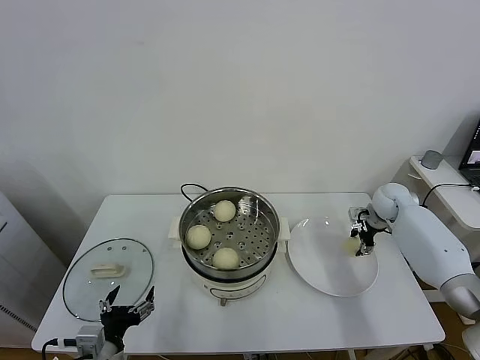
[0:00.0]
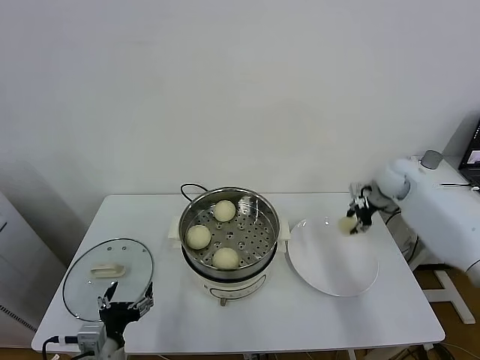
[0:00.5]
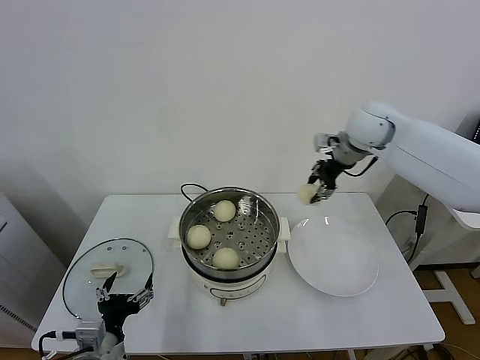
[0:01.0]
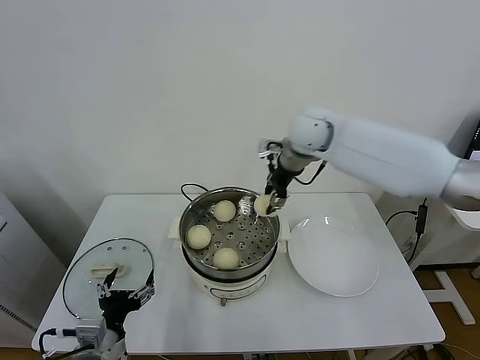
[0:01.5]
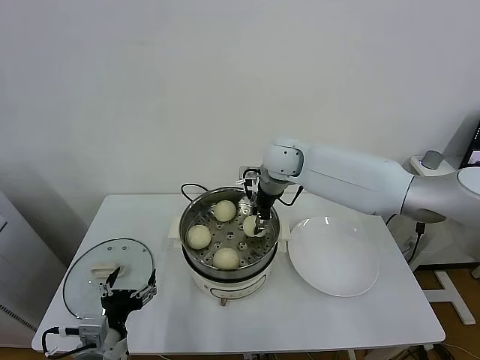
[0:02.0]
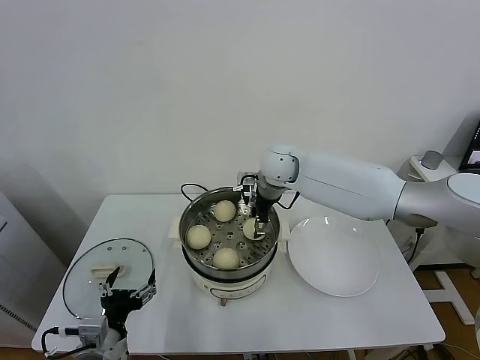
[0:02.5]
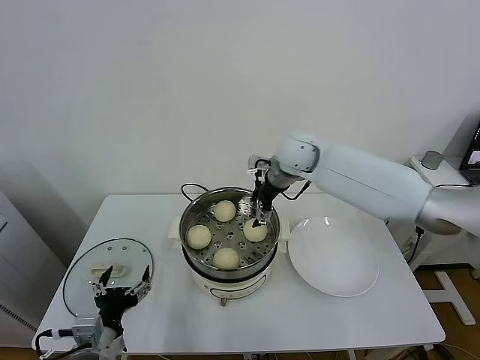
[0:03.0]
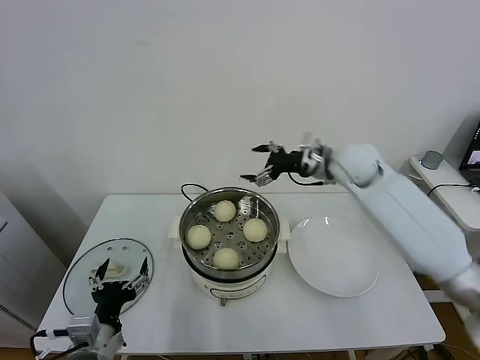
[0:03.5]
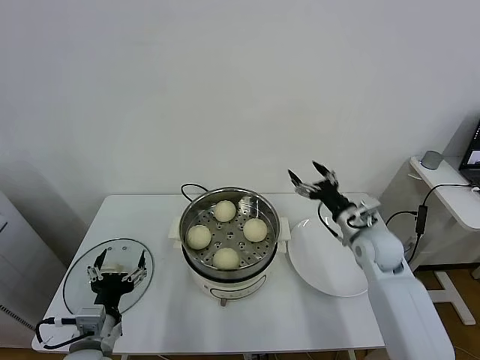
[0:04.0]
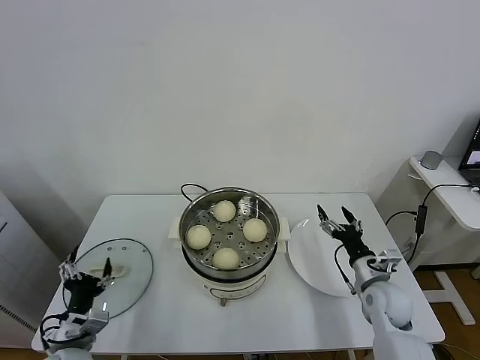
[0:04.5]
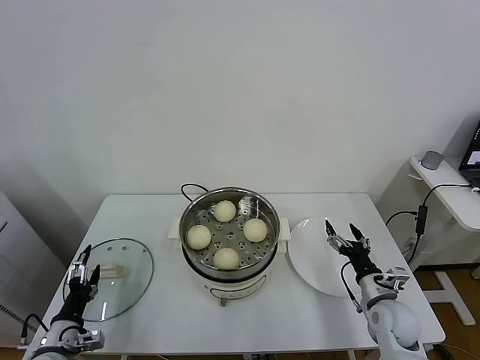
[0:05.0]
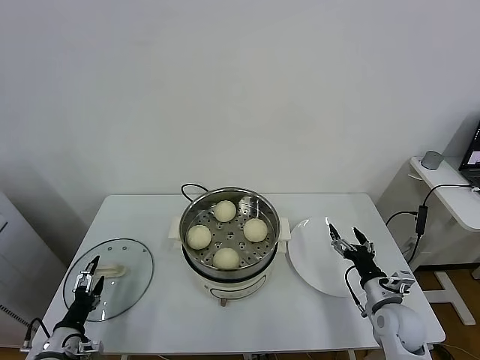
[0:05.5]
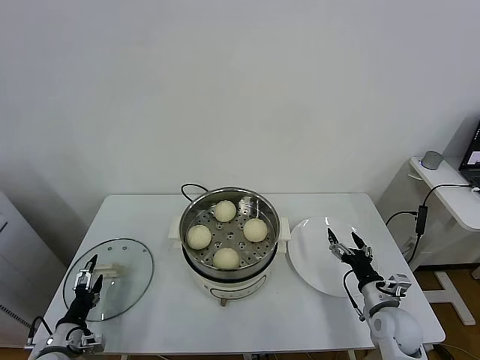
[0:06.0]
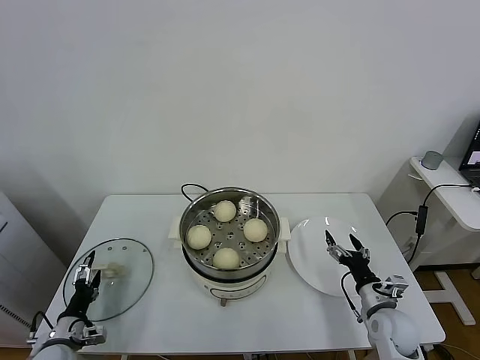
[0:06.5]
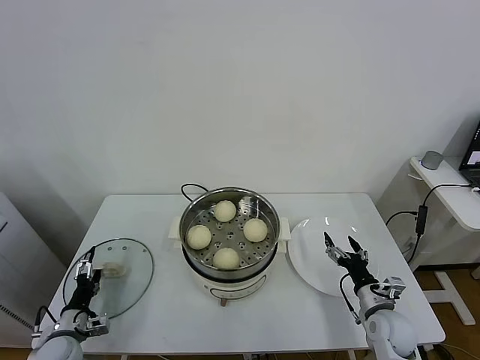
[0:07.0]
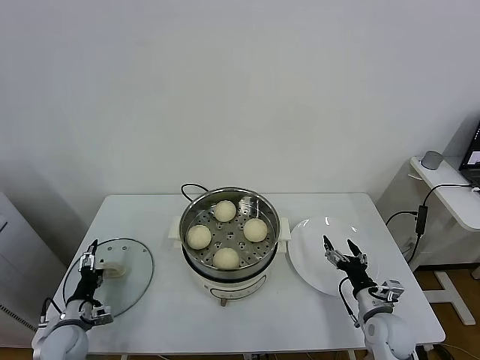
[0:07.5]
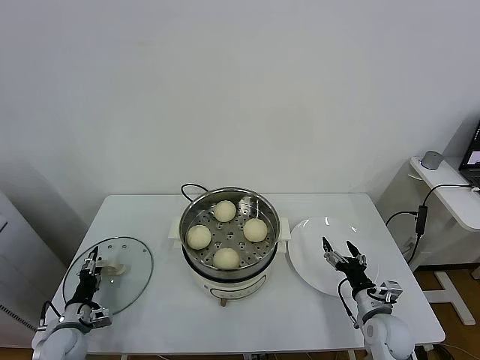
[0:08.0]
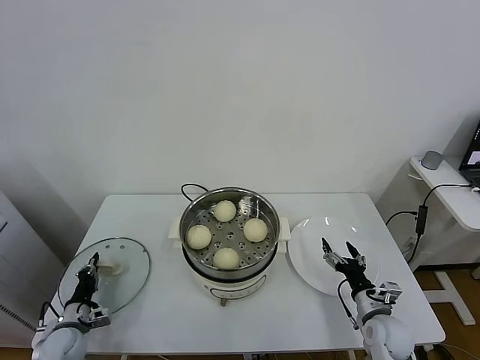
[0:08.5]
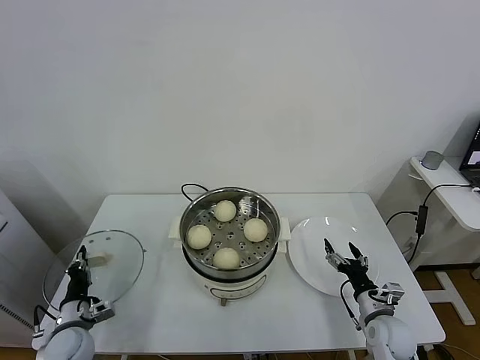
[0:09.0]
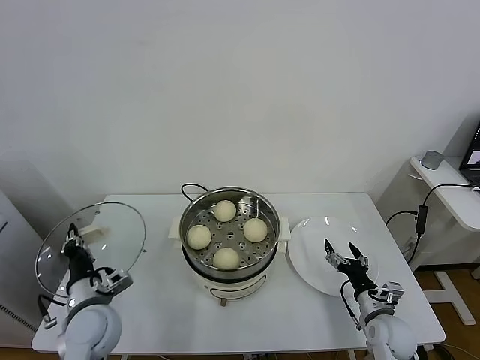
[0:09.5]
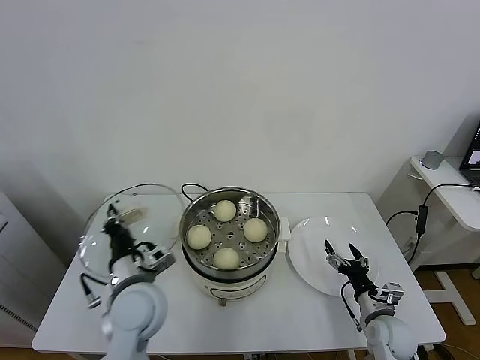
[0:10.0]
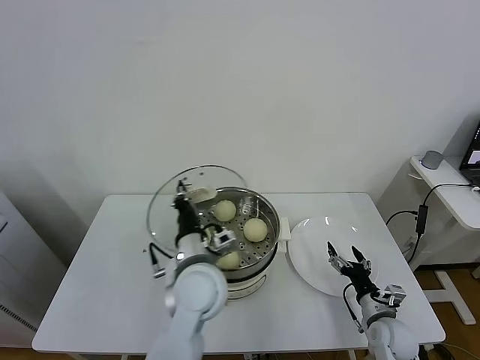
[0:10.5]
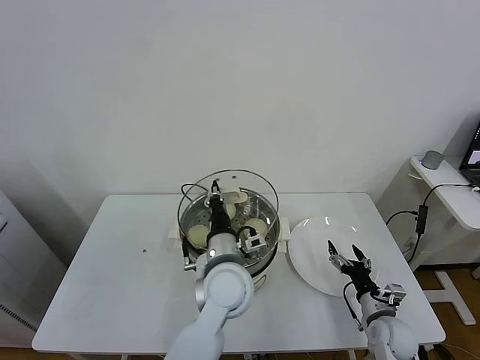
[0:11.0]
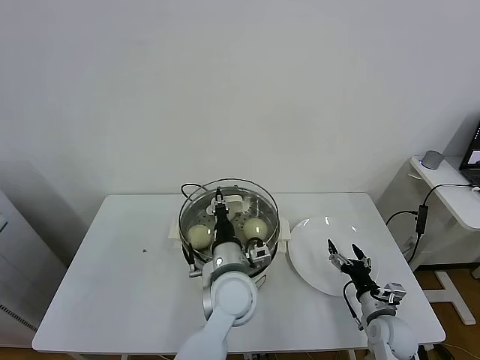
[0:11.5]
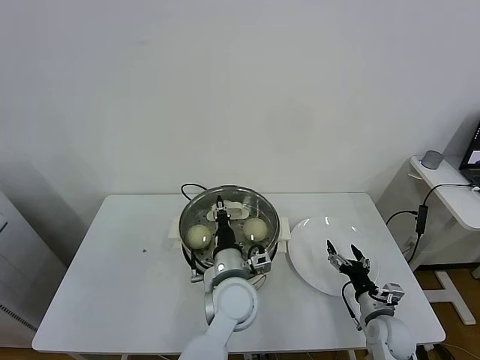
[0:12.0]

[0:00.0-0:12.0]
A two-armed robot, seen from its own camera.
Task of the whole recording: take steamed baozi put them in steamer.
Step, 0:00.5 to 0:03.0: Place the baozi on the steamer with right gripper.
Step, 0:03.5 to 0:08.5: Grasp the pot lid with left gripper.
0:00.0 to 0:02.0: The right gripper moves to the left and upward, approximately 35 cm.
0:02.0 to 0:04.0: The right gripper is displaced to the right, downward and backward by roughly 30 cm, and opens its fingers.
0:04.0 to 0:06.0: The right gripper goes roughly 20 cm backward and downward. Meanwhile the left gripper moves to the left and downward, approximately 20 cm.
0:06.0 to 0:08.0: The left gripper travels forward by some 5 cm.
0:08.0 to 0:10.0: The left gripper shifts approximately 30 cm to the right and upward, and closes its fingers.
0:10.0 to 0:12.0: The left gripper is displaced to the right by roughly 20 cm.

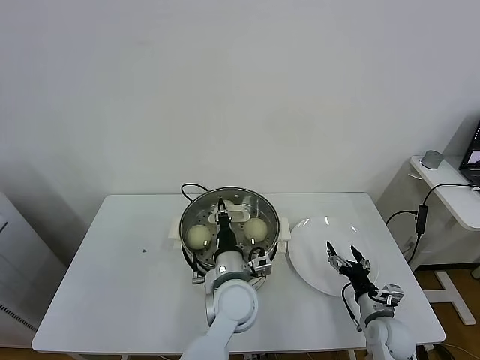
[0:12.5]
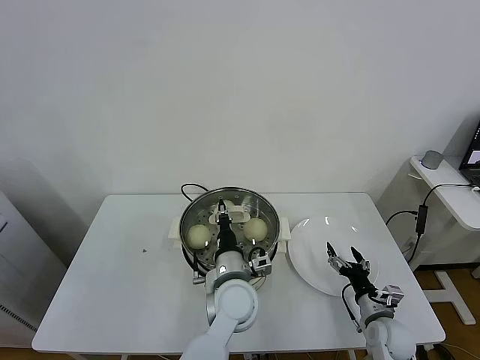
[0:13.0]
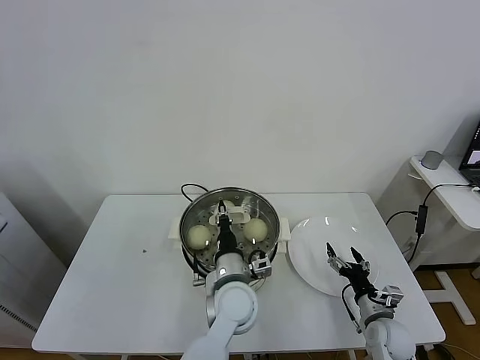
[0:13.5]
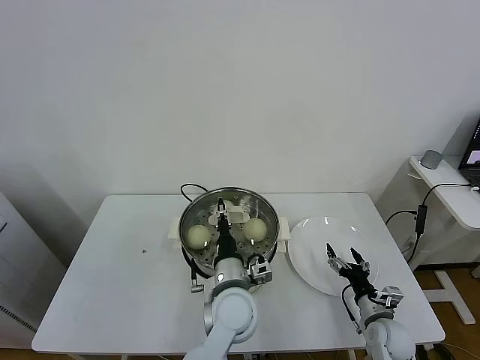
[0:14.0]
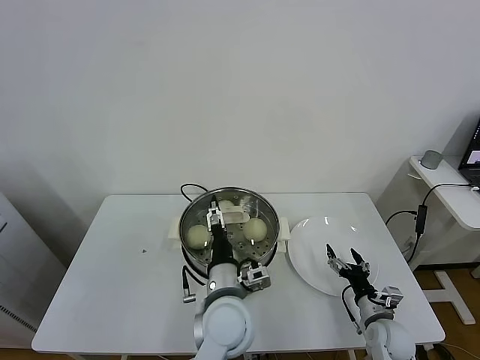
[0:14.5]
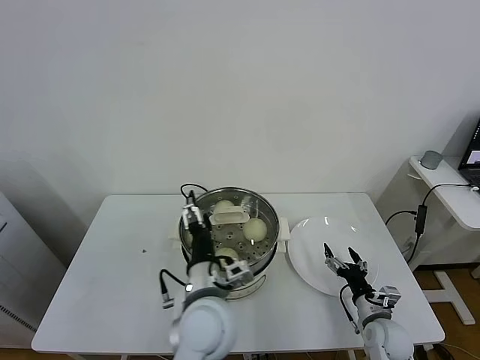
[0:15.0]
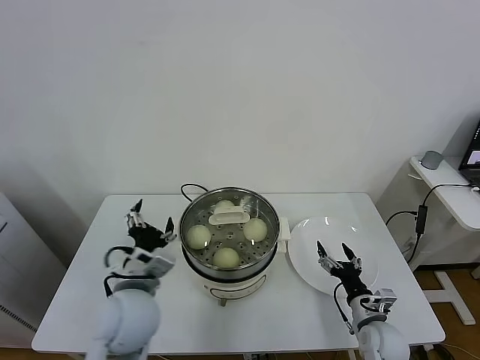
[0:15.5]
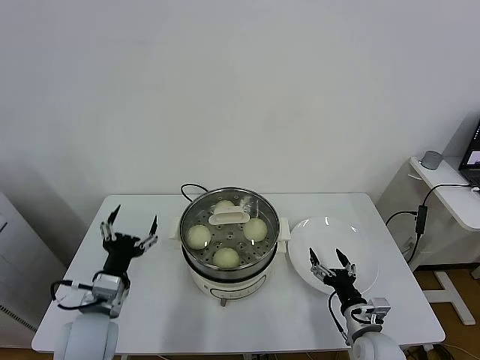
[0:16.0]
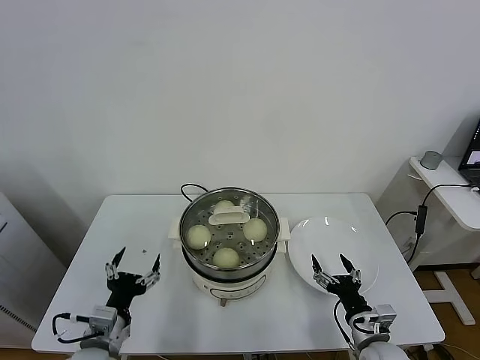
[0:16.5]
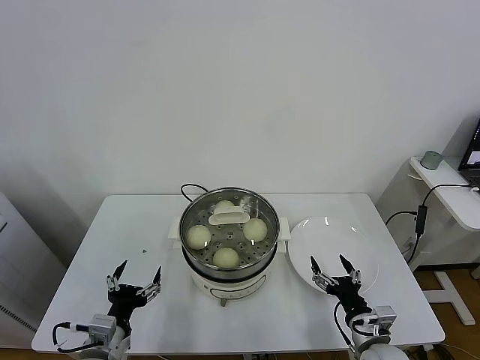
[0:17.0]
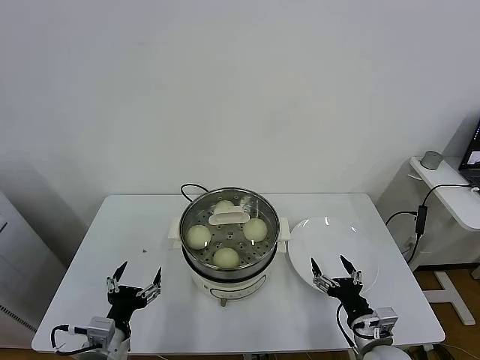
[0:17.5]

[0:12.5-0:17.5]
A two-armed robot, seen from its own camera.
Task of the whole recording: take steamed baozi put them in steamer.
0:12.5 to 0:15.0: The left gripper goes some 10 cm backward and upward, and opens.
0:15.0 to 0:17.5: The left gripper moves to the left and downward, about 25 cm. The right gripper is displaced backward and upward by about 10 cm.

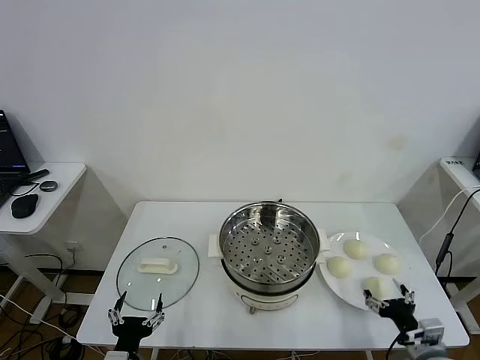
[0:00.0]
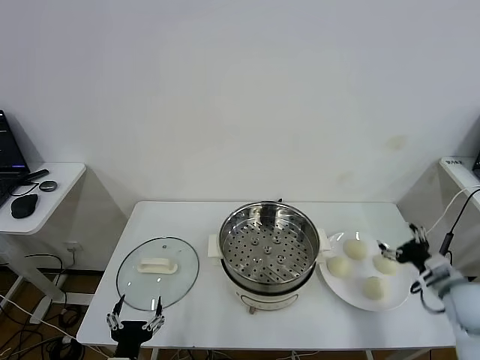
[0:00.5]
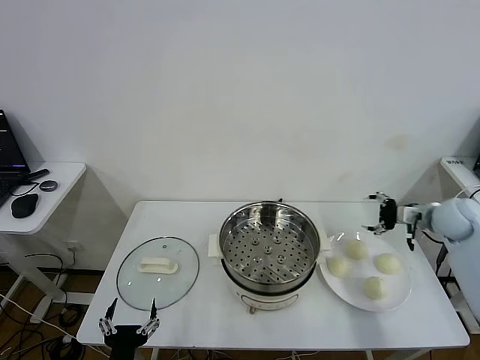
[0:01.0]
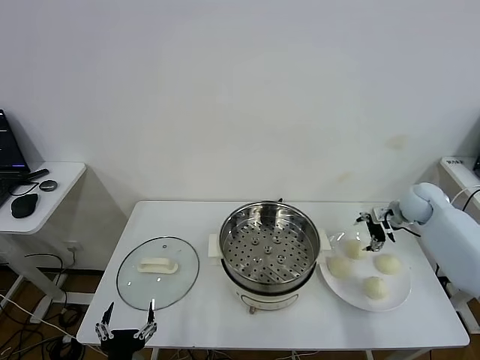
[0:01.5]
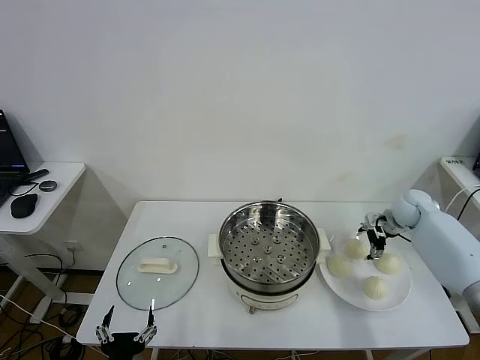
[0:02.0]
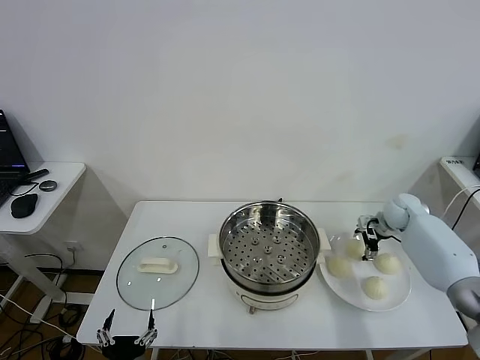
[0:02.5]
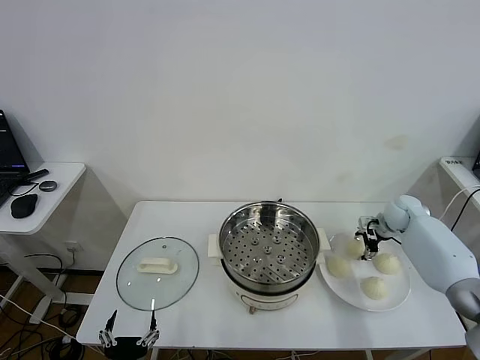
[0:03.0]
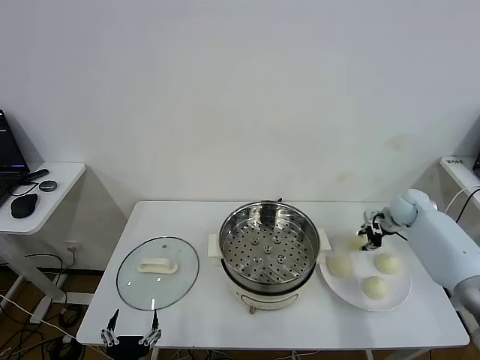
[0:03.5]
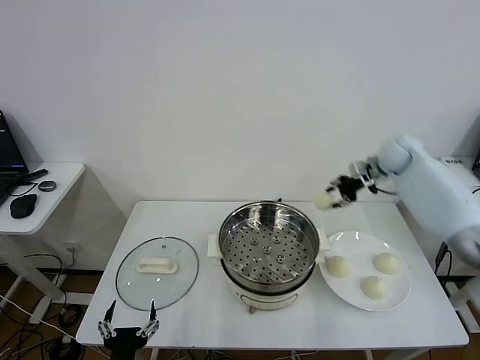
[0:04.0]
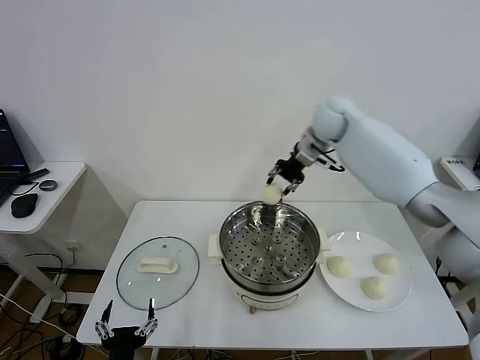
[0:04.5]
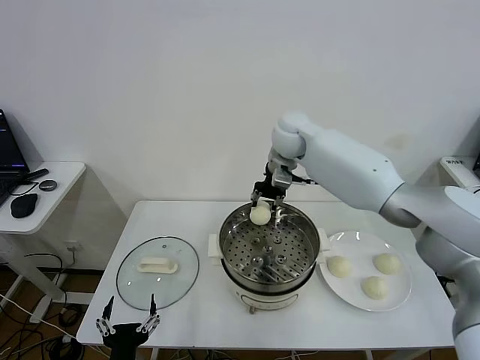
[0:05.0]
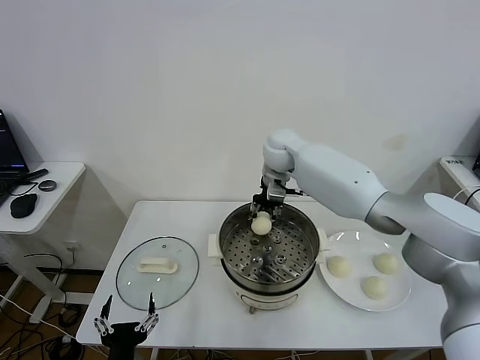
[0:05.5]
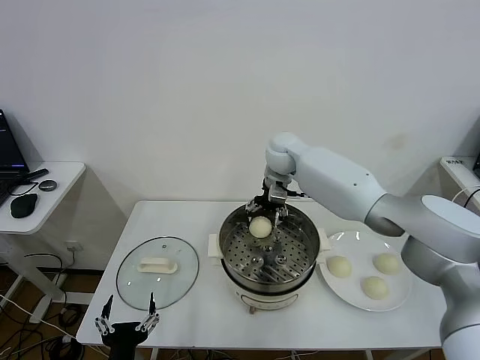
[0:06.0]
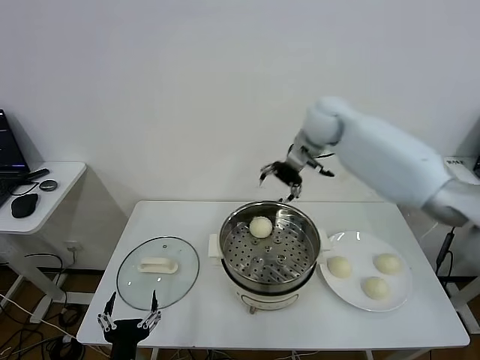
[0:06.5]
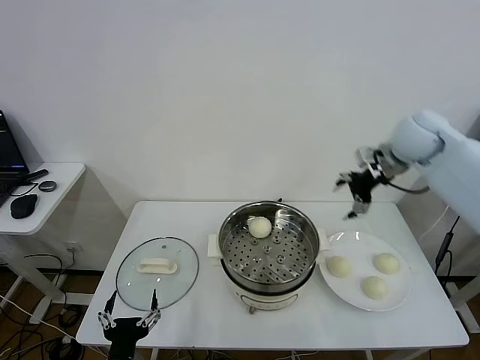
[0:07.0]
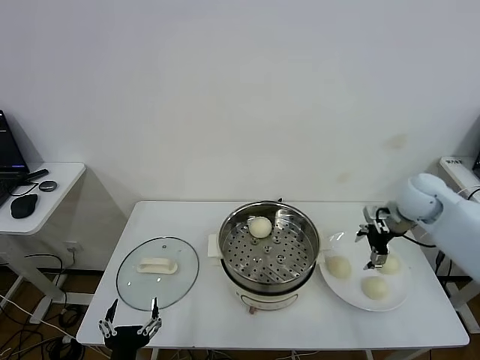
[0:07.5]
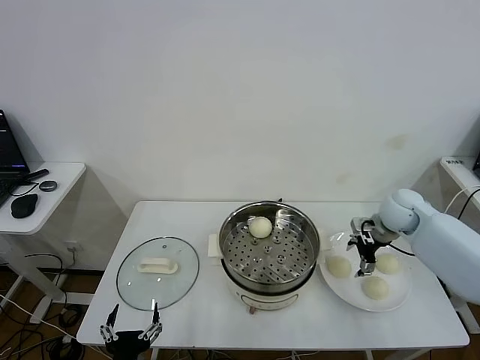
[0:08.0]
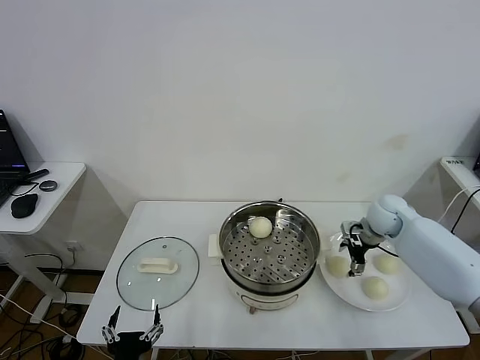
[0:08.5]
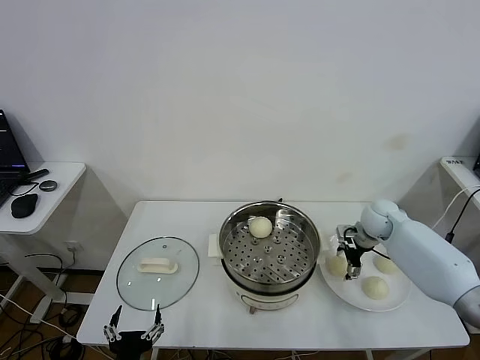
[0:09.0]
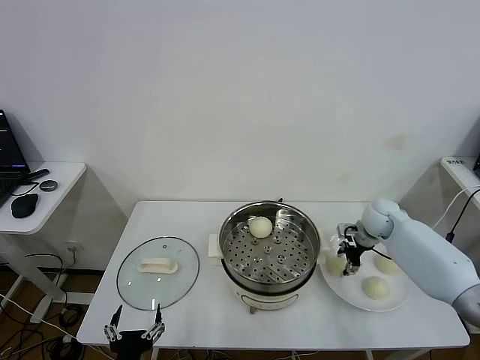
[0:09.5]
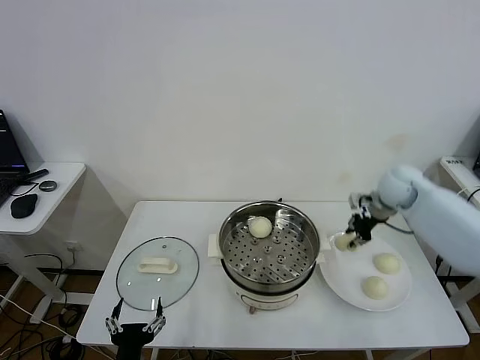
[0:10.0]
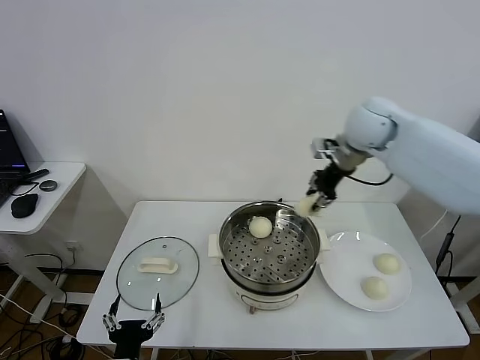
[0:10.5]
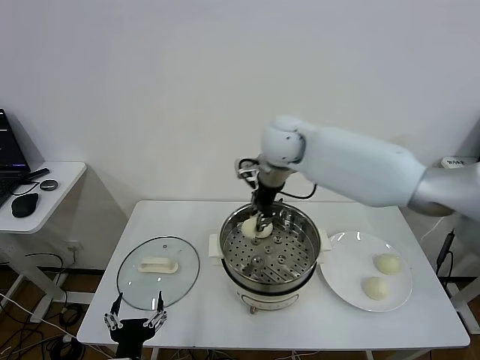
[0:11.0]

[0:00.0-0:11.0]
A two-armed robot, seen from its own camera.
Task of the whole recording: take steamed baozi put them in steamer.
Step, 0:00.0 to 0:03.0: Grasp the baozi in the plate with right gripper.
Step, 0:03.5 to 0:06.0: Place the baozi on the steamer with right gripper.
Step, 0:06.5 to 0:09.0: Grasp the baozi in the plate with right gripper.
0:02.0 to 0:03.5: The right gripper closes up.
0:03.5 to 0:05.5: The right gripper is displaced to the left by approximately 35 cm.
0:05.5 to 0:07.5: The right gripper heads to the right and backward, covering roughly 30 cm, and opens.
0:07.5 to 0:09.0: The right gripper travels downward by approximately 10 cm.
0:09.0 to 0:11.0: The right gripper is displaced to the left and upward by about 35 cm, and closes its fingers.
